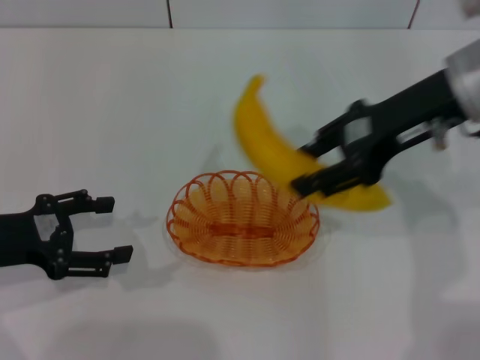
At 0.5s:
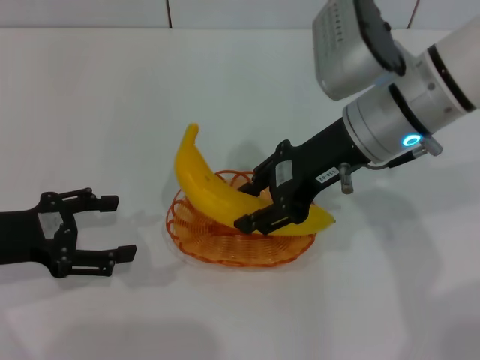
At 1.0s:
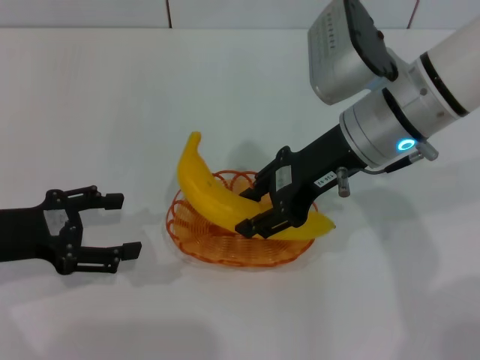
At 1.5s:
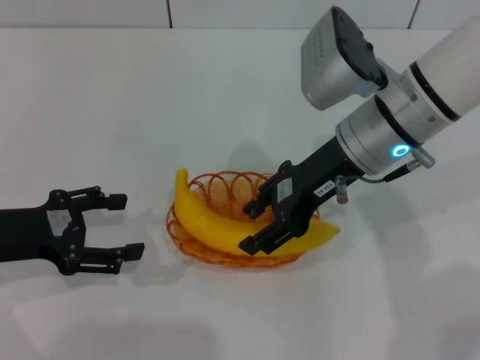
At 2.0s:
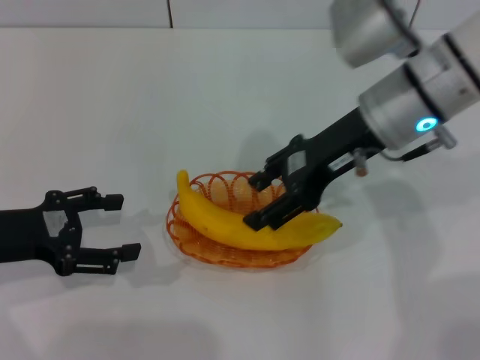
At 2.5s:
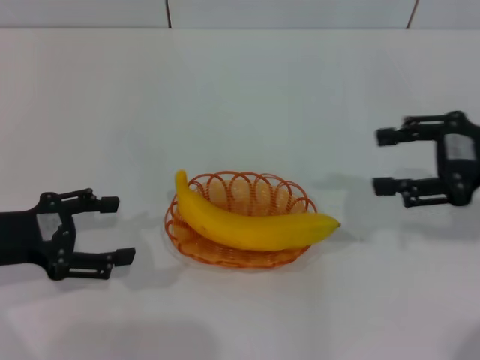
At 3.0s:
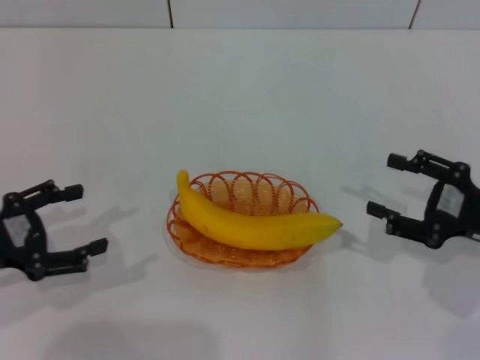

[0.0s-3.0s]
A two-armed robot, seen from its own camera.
Step, 0.0s to 2.0s: Place the banana into the basket with the right gripper.
0.0s to 1.5s: The right gripper heads to the left and downward, covering some 10 cm.
1.5s to 3.0s: The right gripper shifts about 25 cm to the right, backward and downward, and opens its fingers.

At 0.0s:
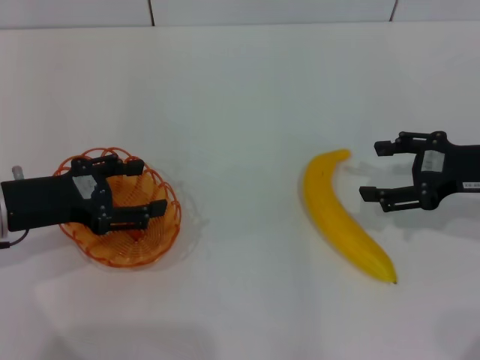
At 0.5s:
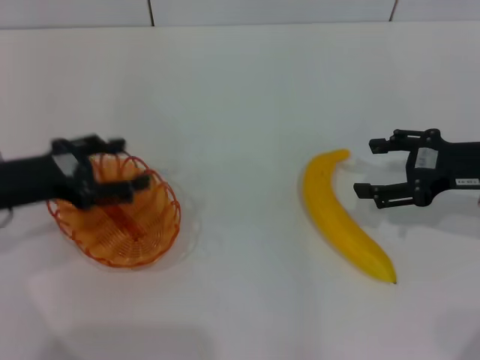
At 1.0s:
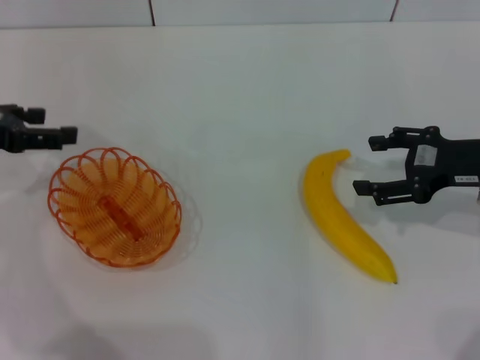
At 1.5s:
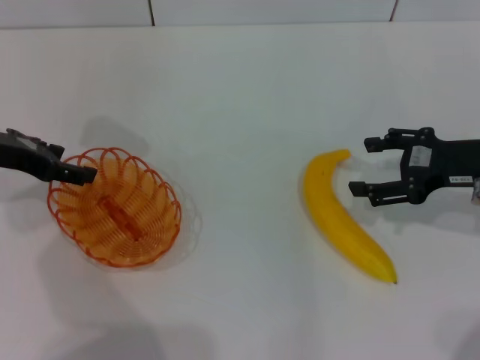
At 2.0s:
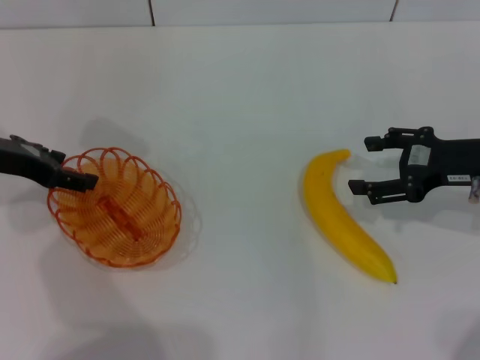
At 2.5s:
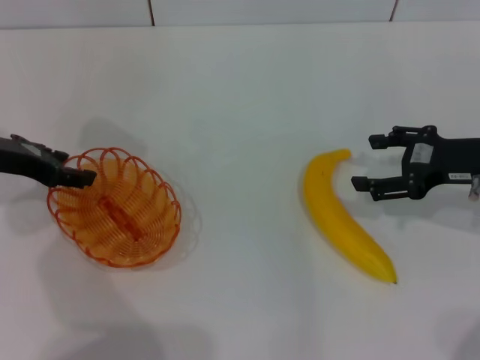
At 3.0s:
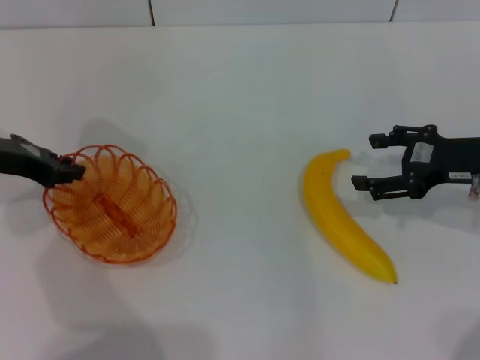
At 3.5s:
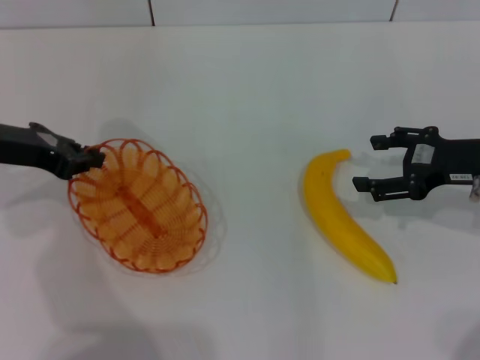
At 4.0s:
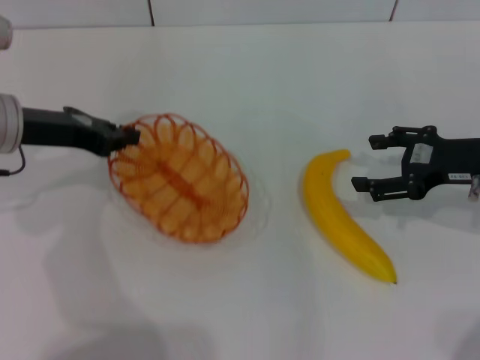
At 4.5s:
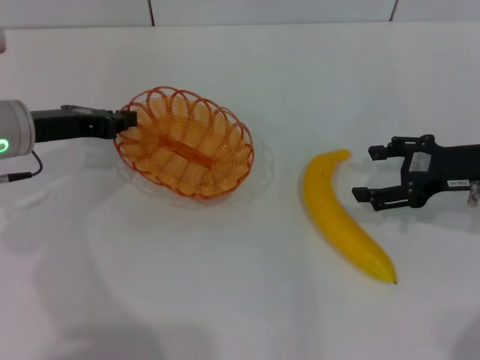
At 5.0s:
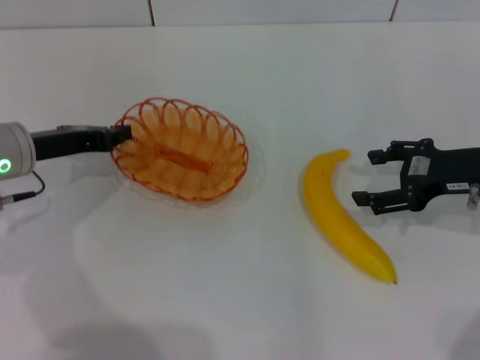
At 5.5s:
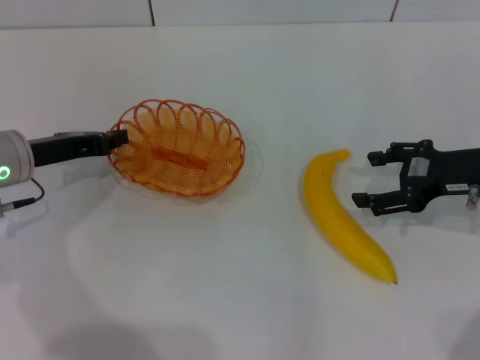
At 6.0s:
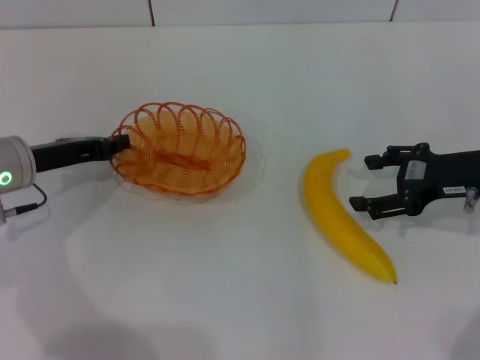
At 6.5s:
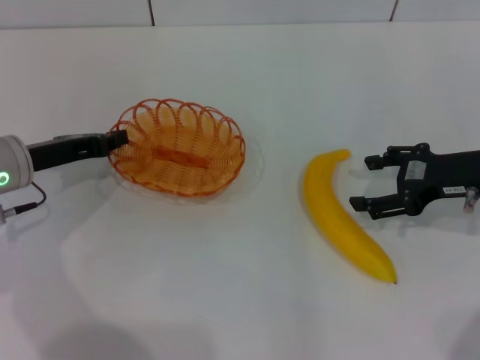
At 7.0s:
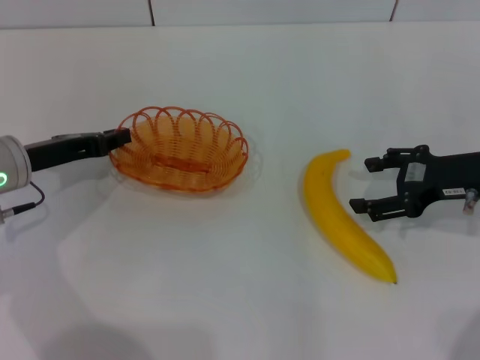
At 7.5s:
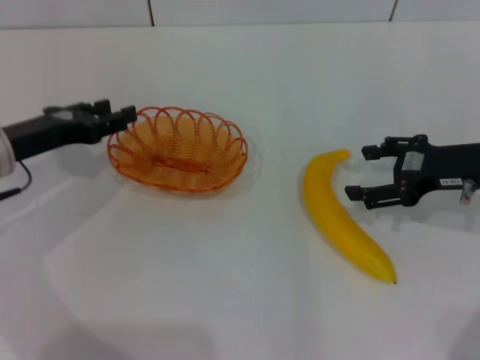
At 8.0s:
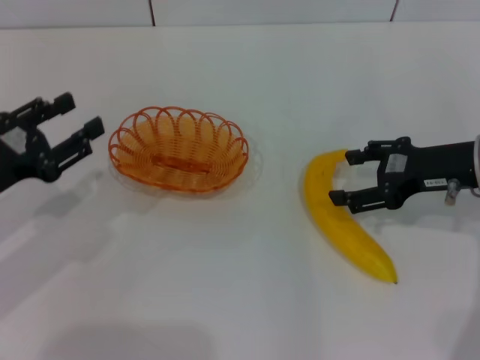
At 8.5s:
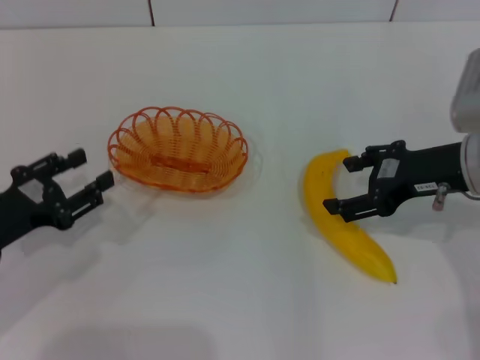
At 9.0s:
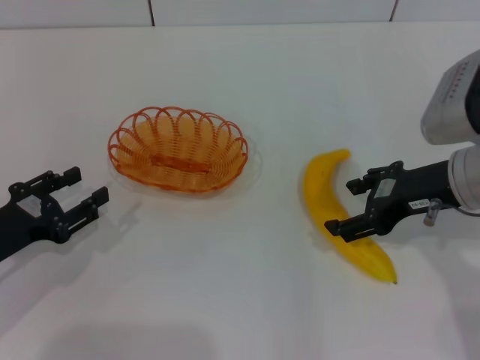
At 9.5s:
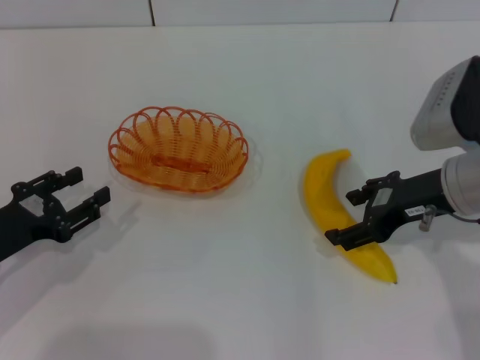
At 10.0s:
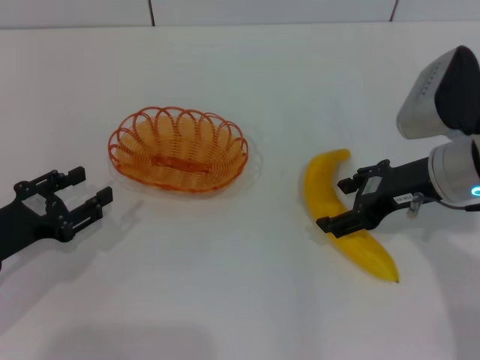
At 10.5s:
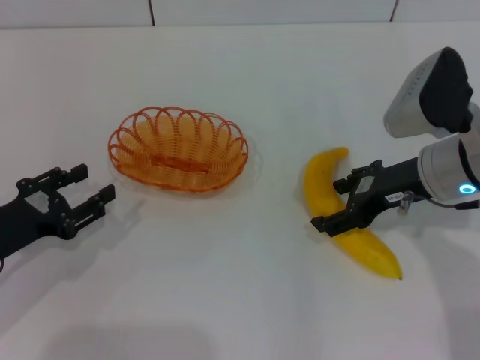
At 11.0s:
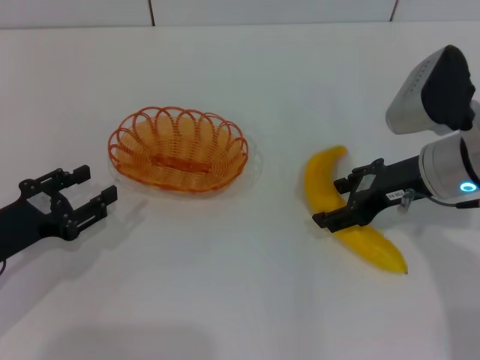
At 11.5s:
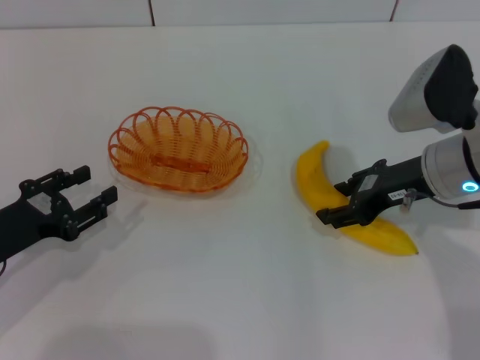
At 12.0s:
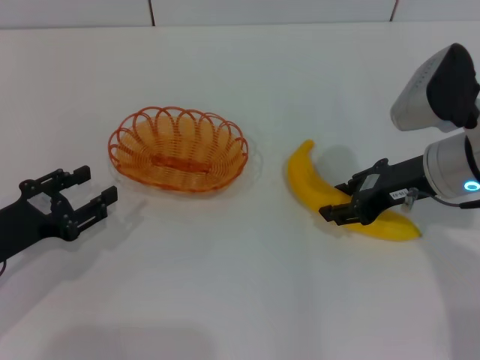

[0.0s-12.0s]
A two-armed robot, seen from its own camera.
Step, 0.0s to 3.5s: Pick up the basket with the left gripper.
Step, 4.0s to 7.0s: Place the basket in the center of view with the left gripper.
0.0s to 2.0s: The left gripper goes approximately 5 cm forward.
2.0s to 4.0s: The left gripper closes its fingers.
4.0s to 6.0s: The left gripper shifts roughly 5 cm downward.
6.0s to 8.0s: The left gripper heads backward, covering about 10 cm, and opens its fingers.
8.0s to 10.0s: The left gripper travels downward by some 5 cm. The right gripper travels to the left by about 5 cm.
10.0s to 12.0s: The right gripper closes.

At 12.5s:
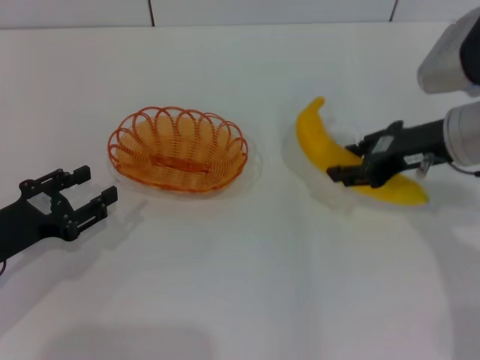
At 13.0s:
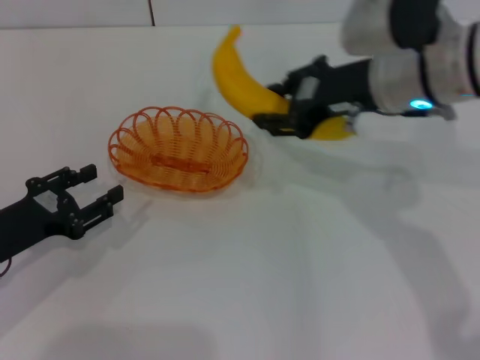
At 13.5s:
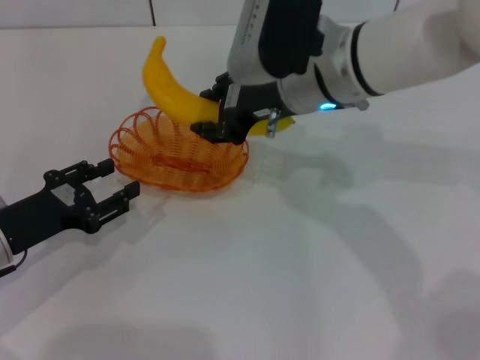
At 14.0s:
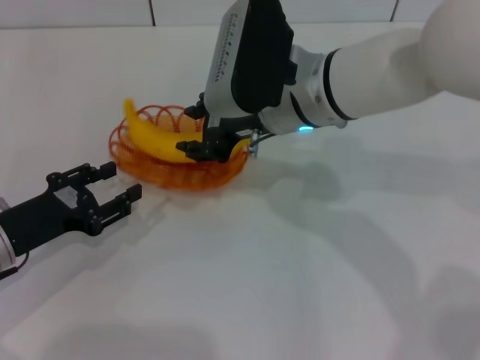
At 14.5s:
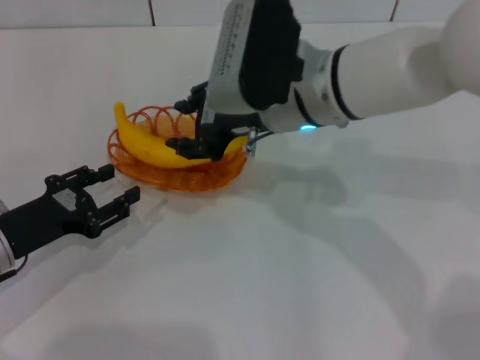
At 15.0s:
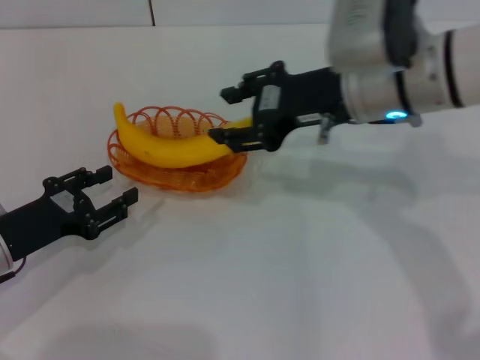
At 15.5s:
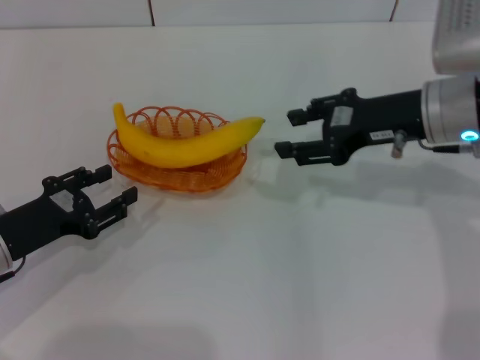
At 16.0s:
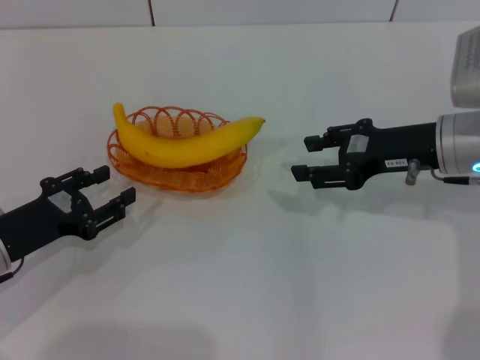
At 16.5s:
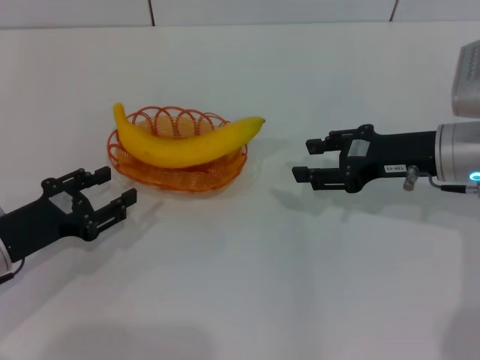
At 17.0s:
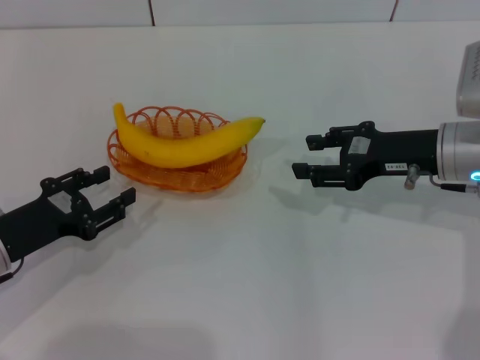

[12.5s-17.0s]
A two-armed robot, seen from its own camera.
Step, 12.5s to 14.0s: Place the banana into the basket with the right gripper.
12.5s to 14.5s: The right gripper is displaced to the left by about 15 cm.
14.5s to 17.0s: The right gripper heads to the right, covering some 20 cm.
